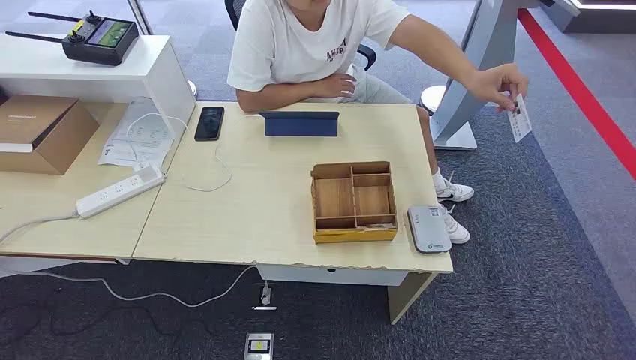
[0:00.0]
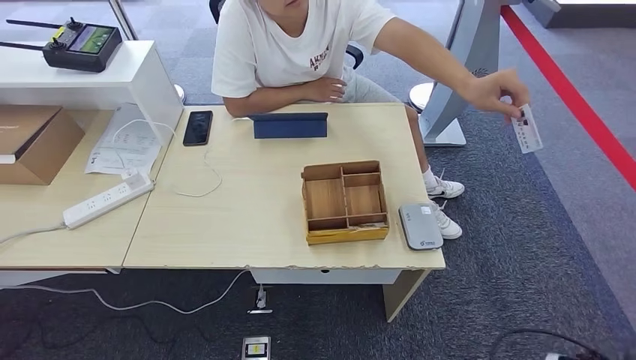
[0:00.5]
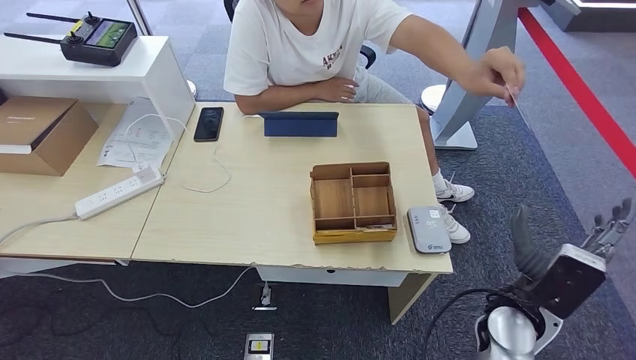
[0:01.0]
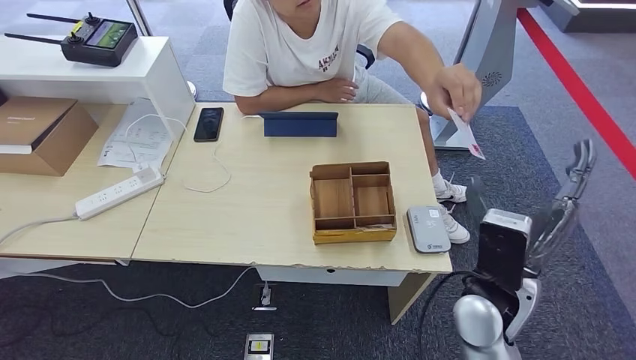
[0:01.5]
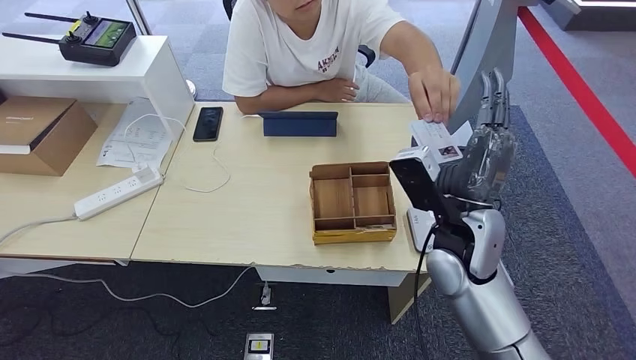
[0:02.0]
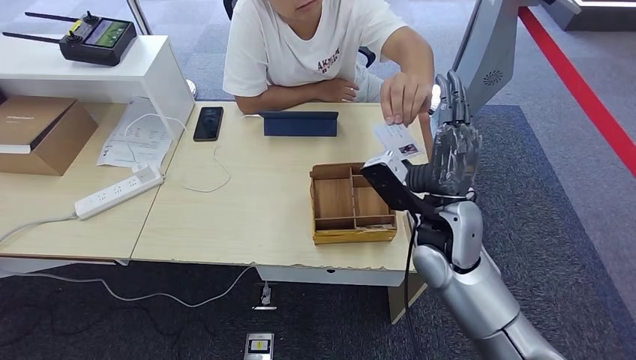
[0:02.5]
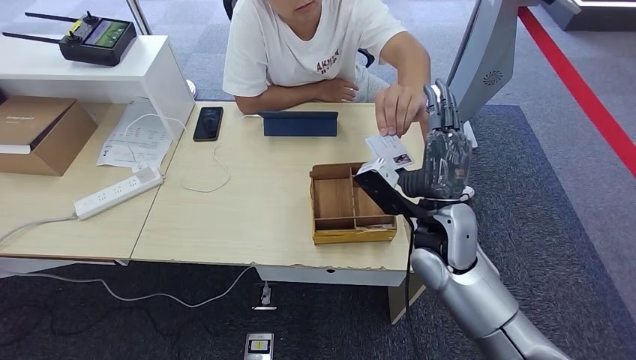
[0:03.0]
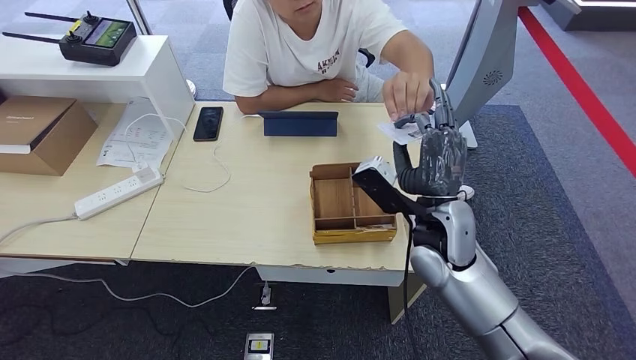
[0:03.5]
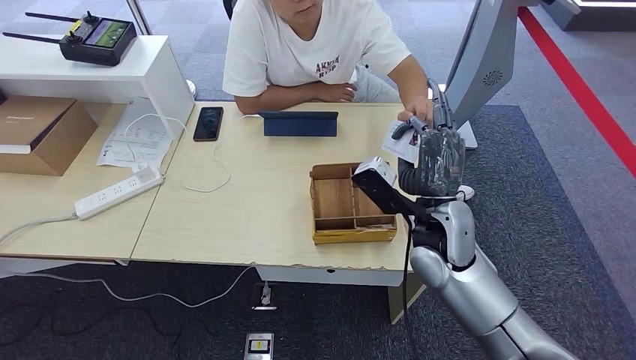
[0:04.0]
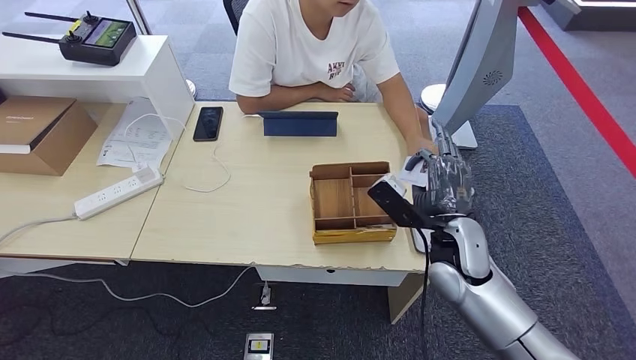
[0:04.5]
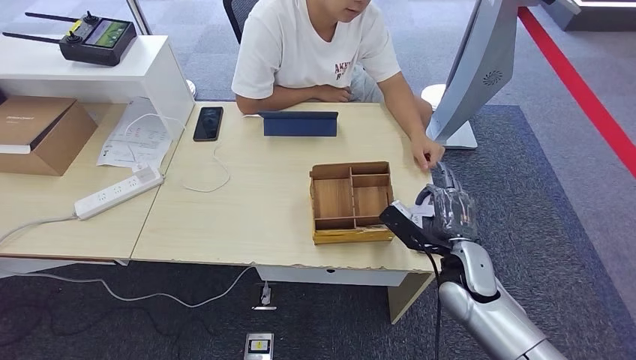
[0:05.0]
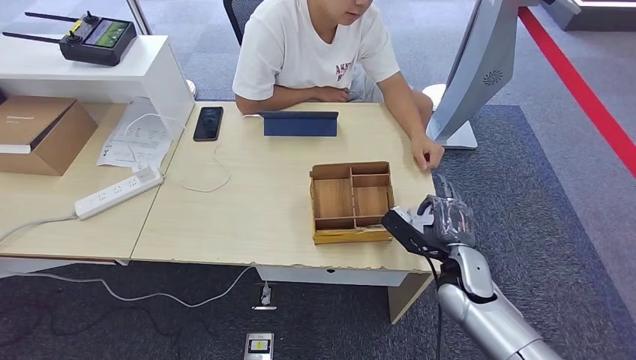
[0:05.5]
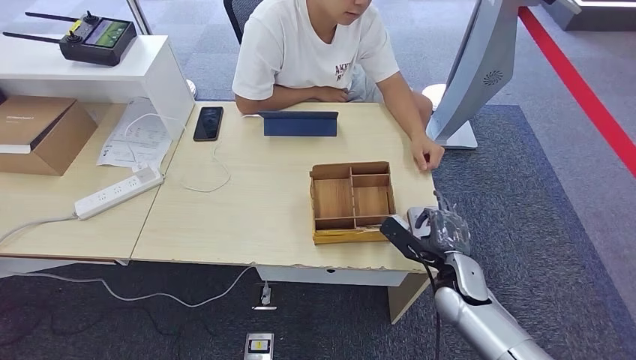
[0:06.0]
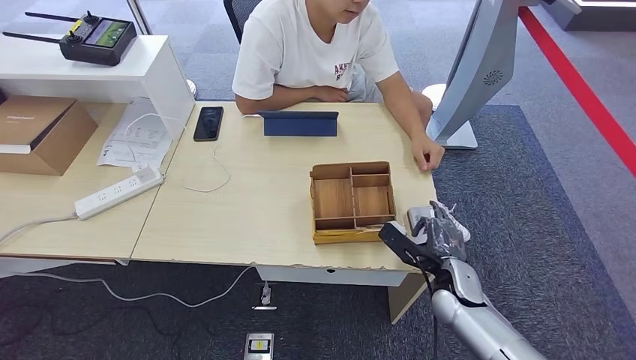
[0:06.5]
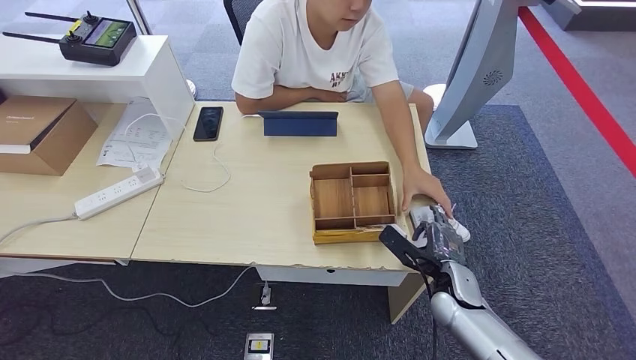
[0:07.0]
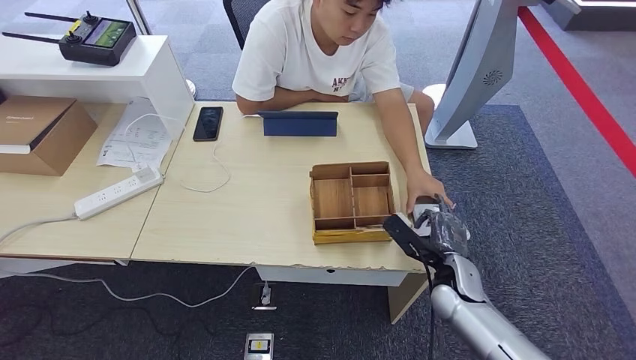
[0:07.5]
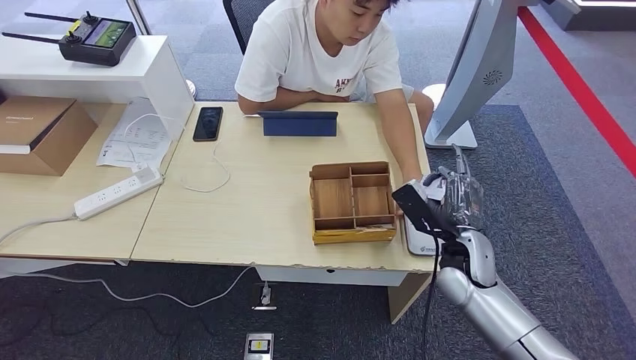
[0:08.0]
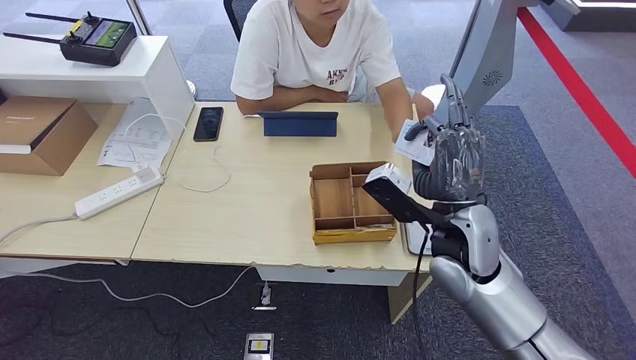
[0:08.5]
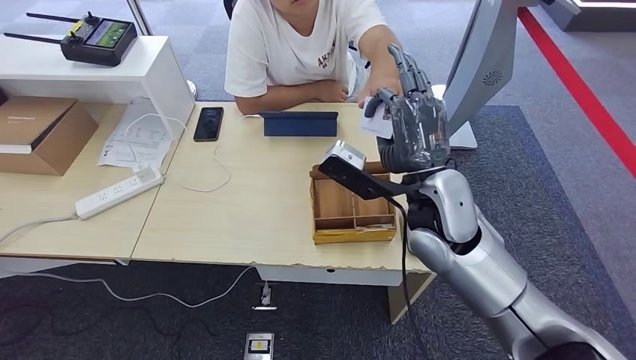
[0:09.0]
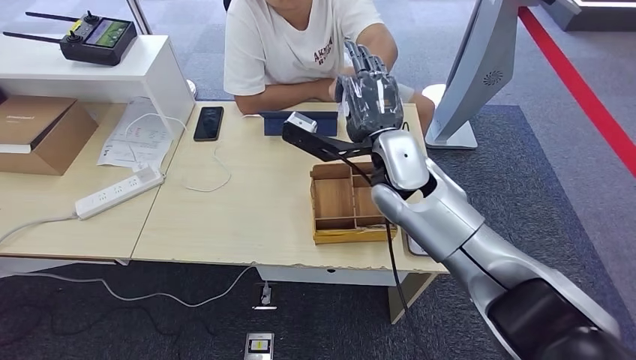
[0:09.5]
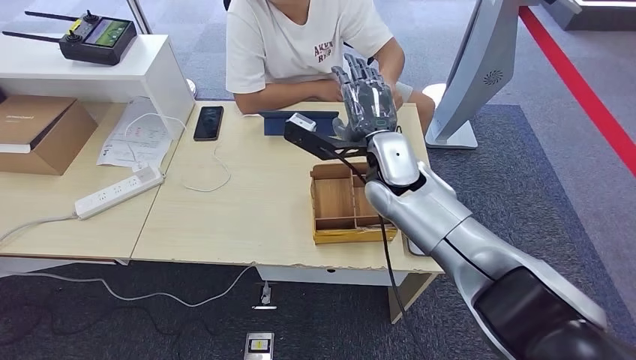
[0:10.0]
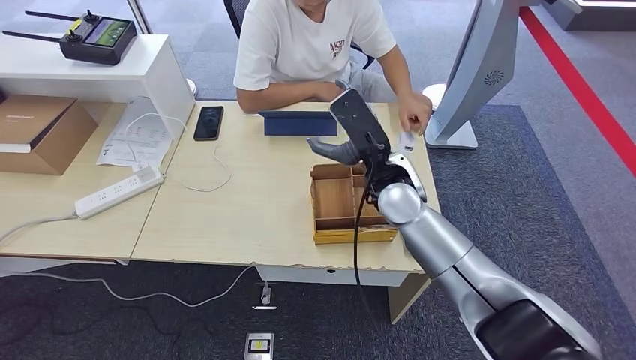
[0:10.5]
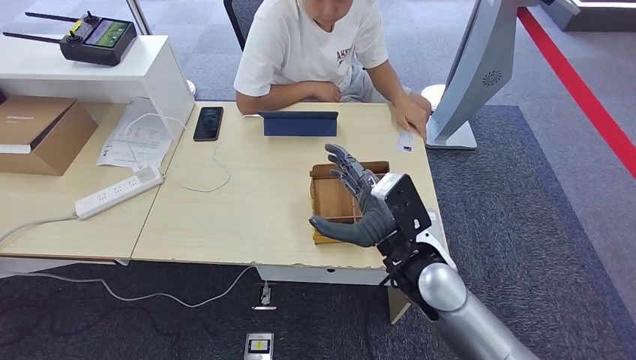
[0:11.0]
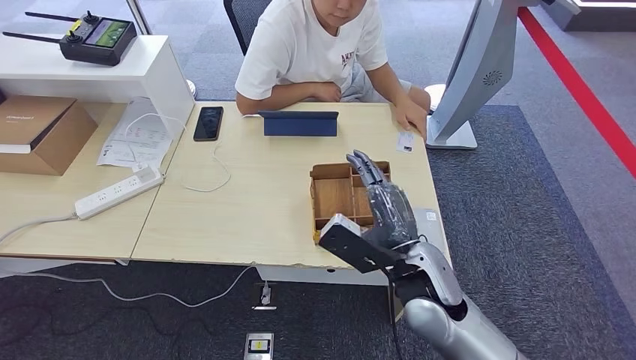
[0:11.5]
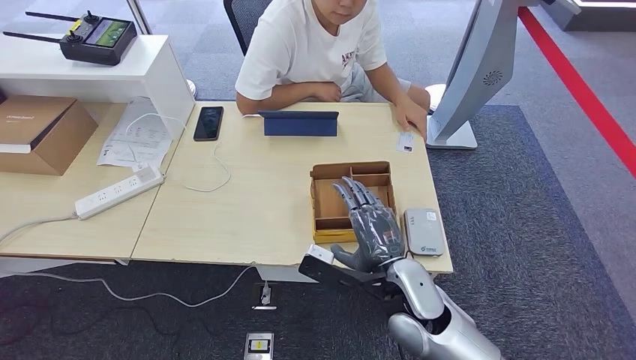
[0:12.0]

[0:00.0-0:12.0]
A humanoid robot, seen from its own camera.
Step, 0:00.0 to 0:05.0: Take the ID card from the person's hand.
Step, 0:05.5 to 0:06.5: Place the ID card on the card reader.
Step, 0:07.0 to 0:10.5: Hand the ID card to the person.
0:02.0 to 0:04.0: The hands stay close to where they were, moving slightly.
0:04.0 to 0:06.0: The right hand goes approximately 20 cm downward and to the right.
0:06.0 to 0:08.0: The right hand moves upward, approximately 5 cm.
0:08.0 to 0:10.0: The right hand moves upward, to the left and forward, about 25 cm.
0:10.0 to 0:12.0: The right hand heads backward and downward, covering about 20 cm.

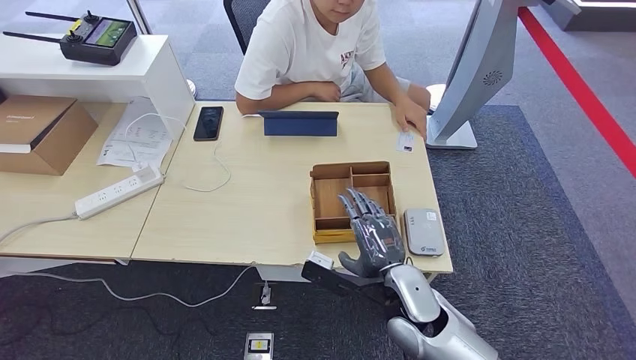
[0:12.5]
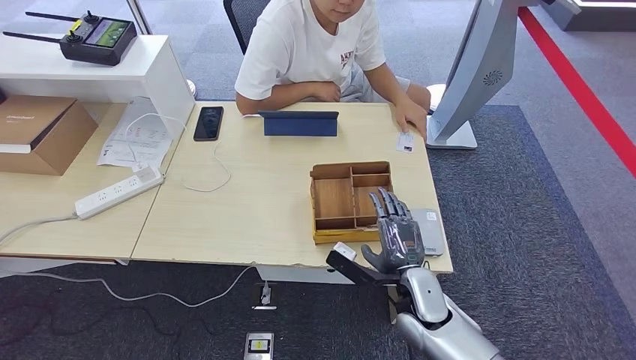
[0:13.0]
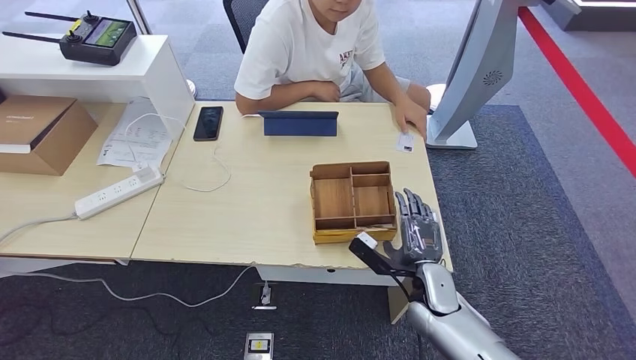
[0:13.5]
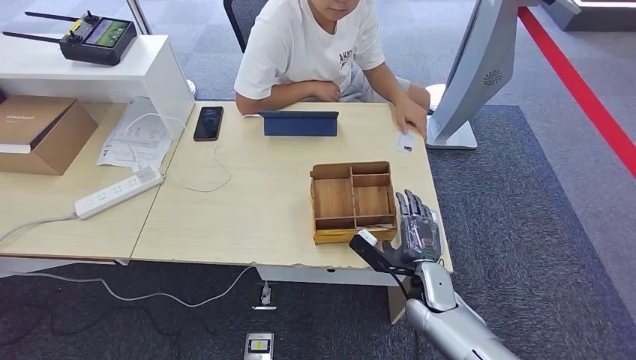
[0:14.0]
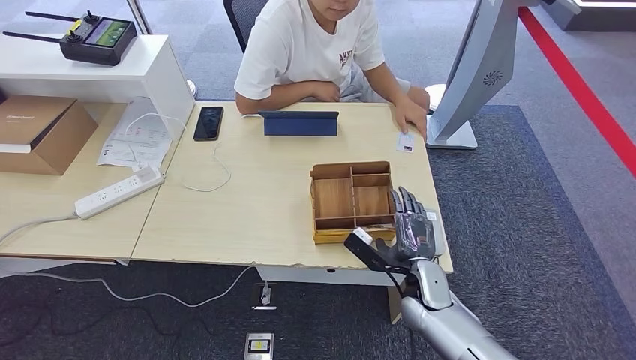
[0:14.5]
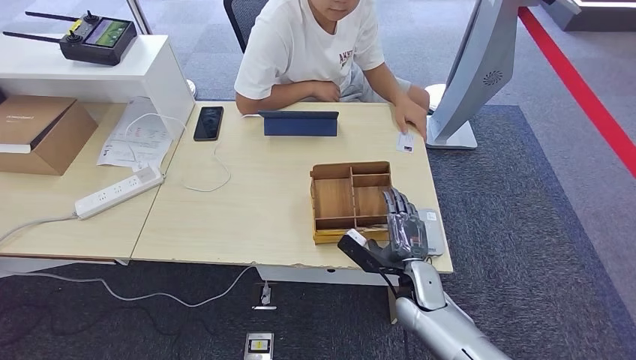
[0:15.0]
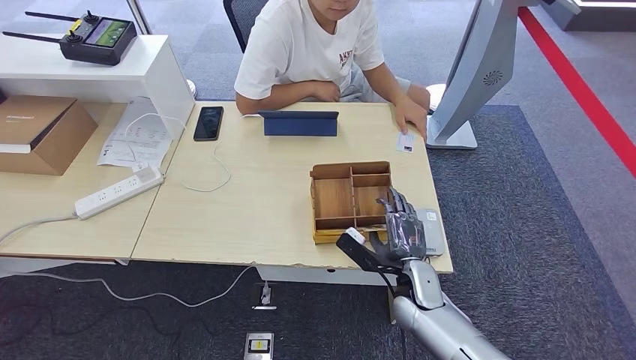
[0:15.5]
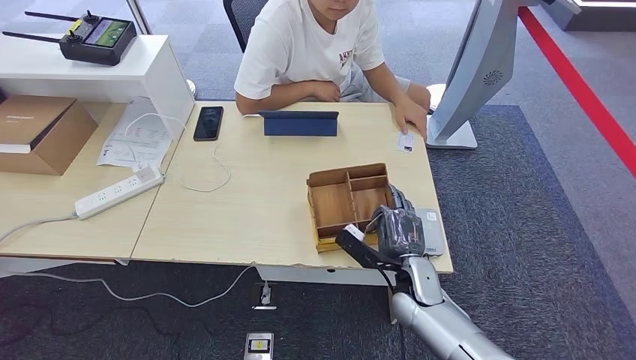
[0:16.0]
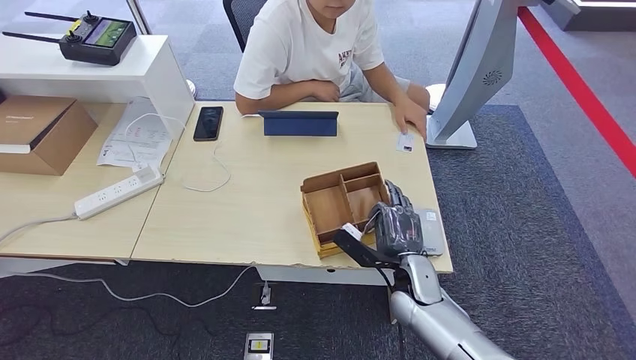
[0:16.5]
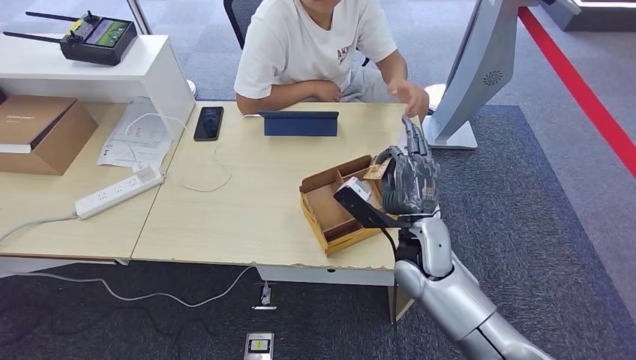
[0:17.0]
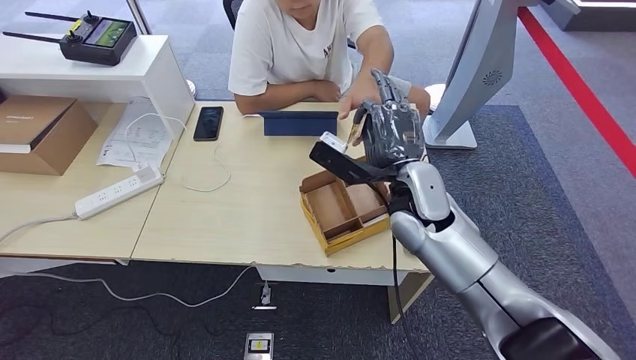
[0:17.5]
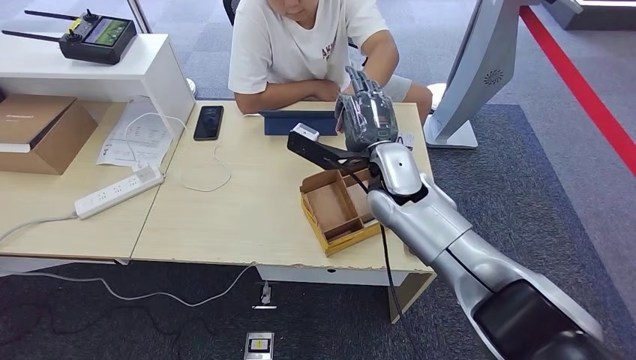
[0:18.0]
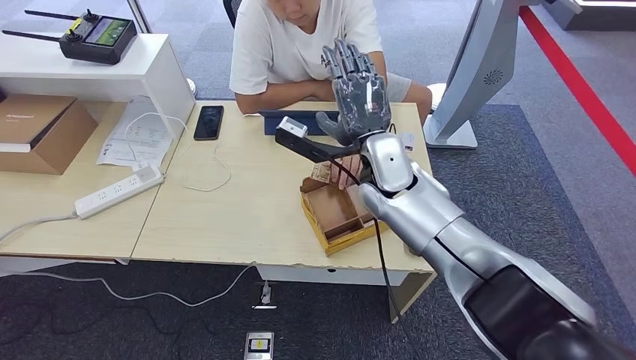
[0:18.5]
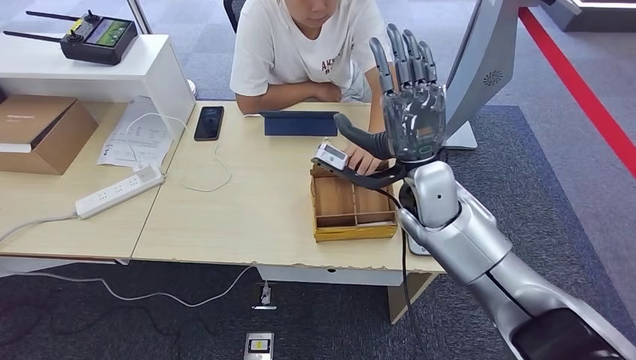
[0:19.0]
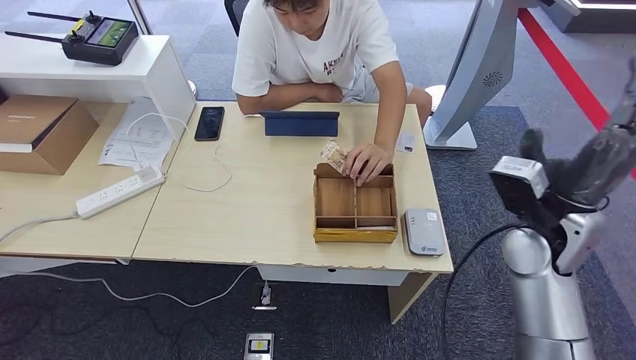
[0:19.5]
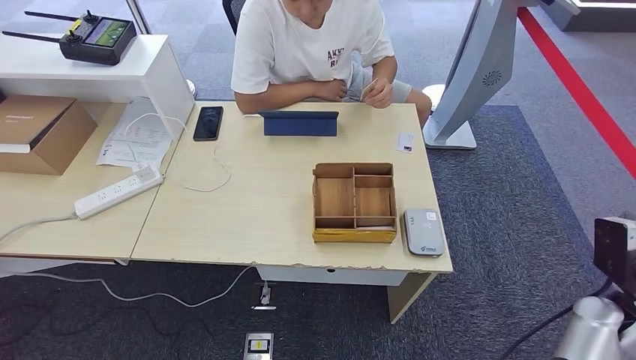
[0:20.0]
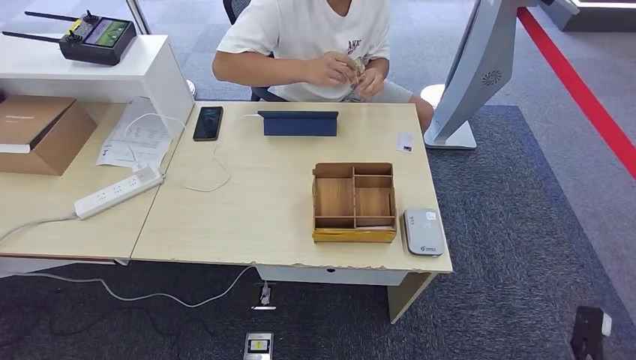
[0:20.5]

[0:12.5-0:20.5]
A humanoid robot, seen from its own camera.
Step, 0:12.5 to 0:17.0: Pick up the room key from the key card box.
Step, 0:17.5 to 0:20.5: Hand the room key to the person.
0:12.5 to 0:14.5: The right hand heads to the right and downward, covering some 10 cm.
0:14.5 to 0:16.5: There are only small adjustments of the hands.
0:18.5 to 0:20.5: The right hand travels backward, to the right and downward by some 50 cm.
